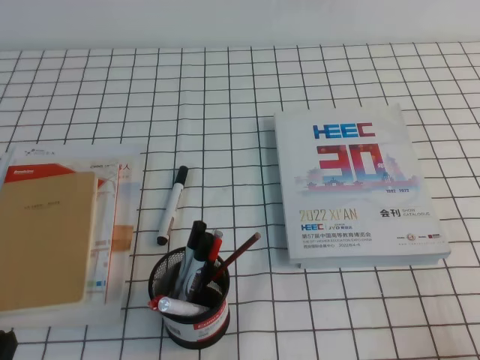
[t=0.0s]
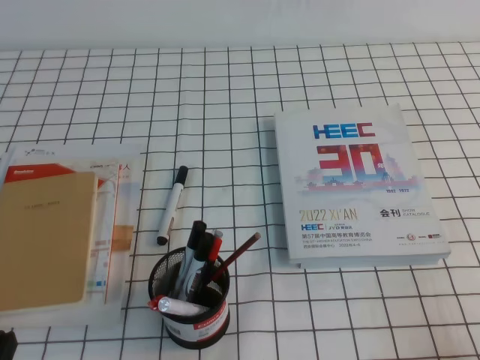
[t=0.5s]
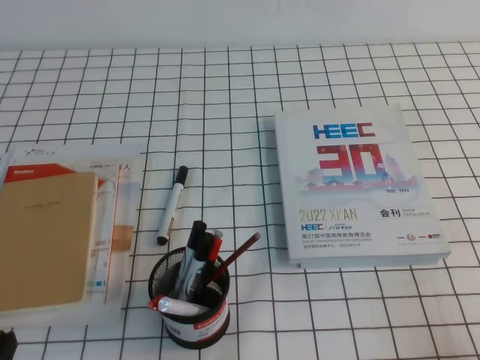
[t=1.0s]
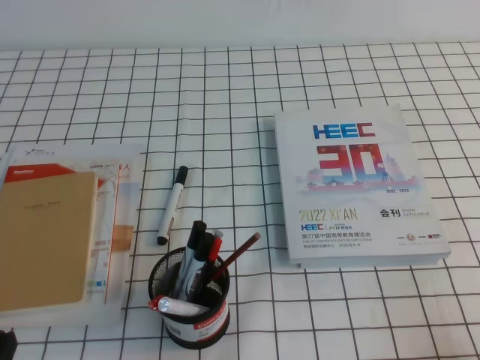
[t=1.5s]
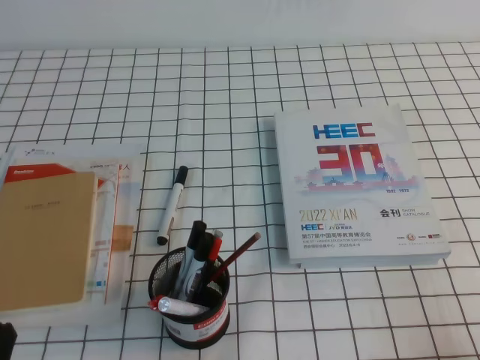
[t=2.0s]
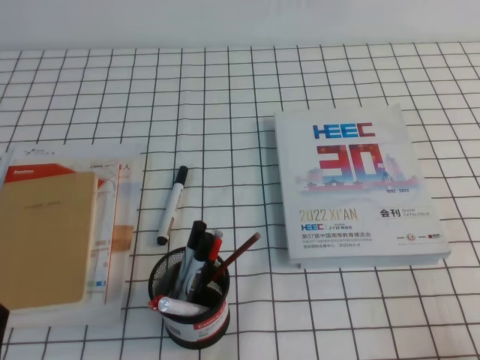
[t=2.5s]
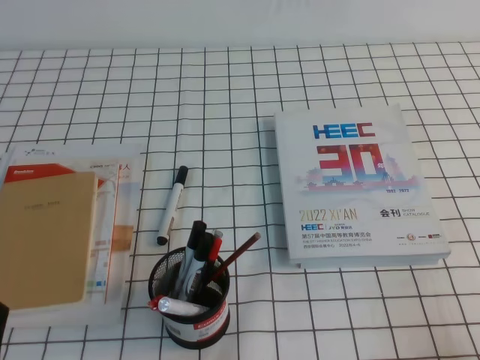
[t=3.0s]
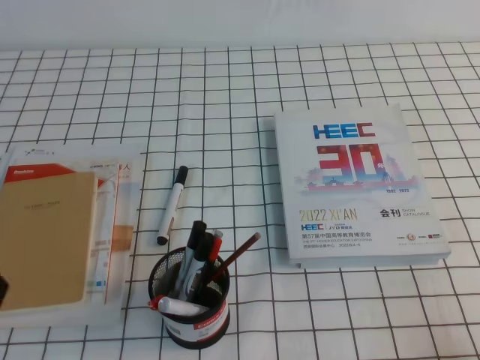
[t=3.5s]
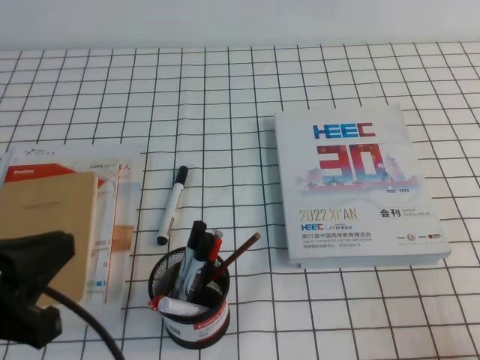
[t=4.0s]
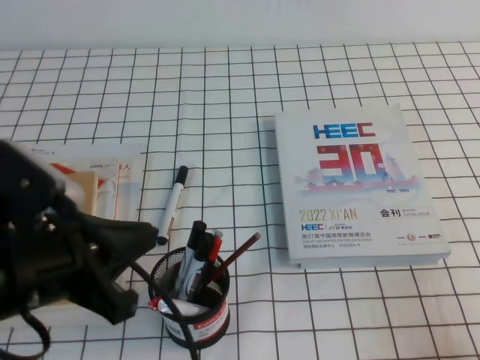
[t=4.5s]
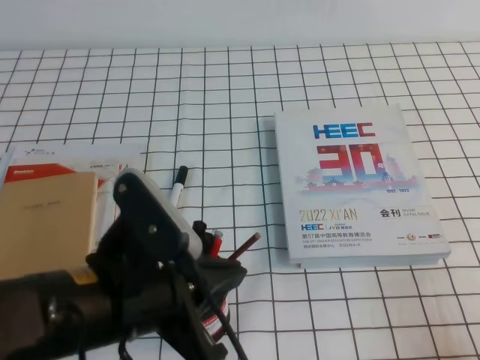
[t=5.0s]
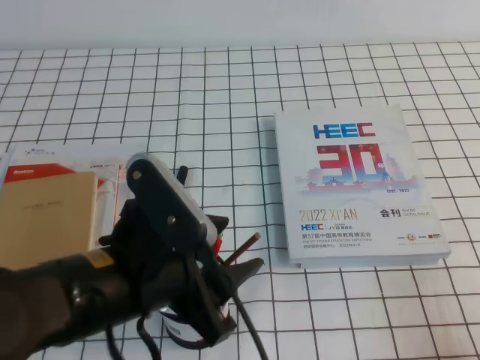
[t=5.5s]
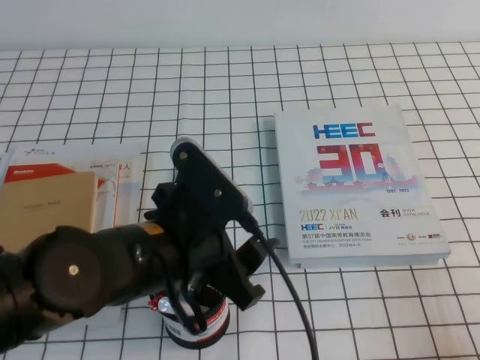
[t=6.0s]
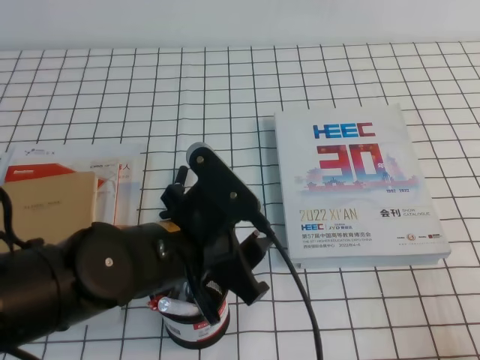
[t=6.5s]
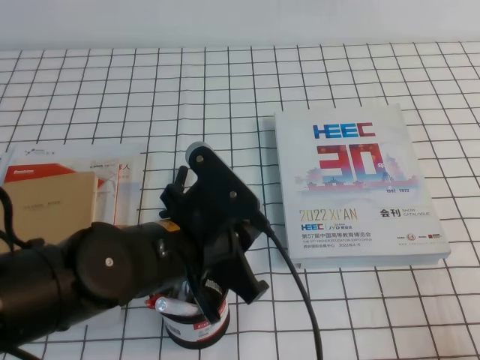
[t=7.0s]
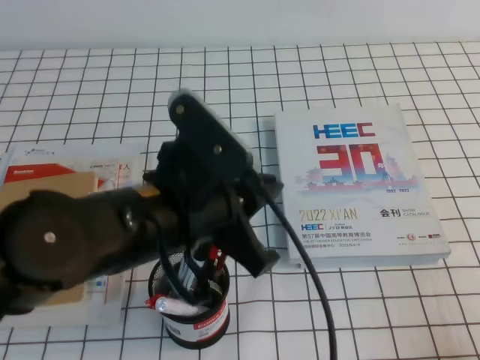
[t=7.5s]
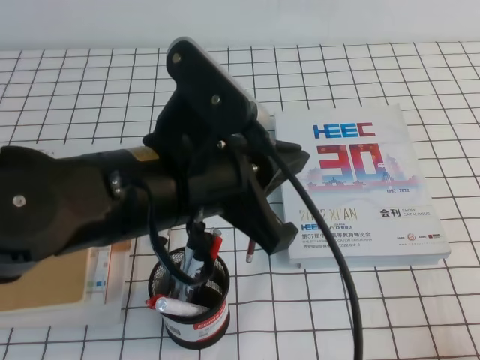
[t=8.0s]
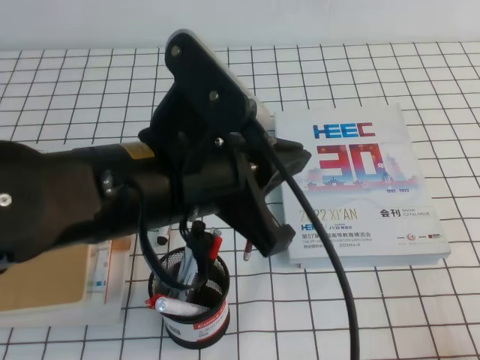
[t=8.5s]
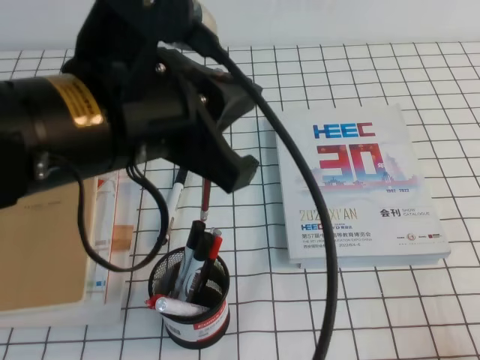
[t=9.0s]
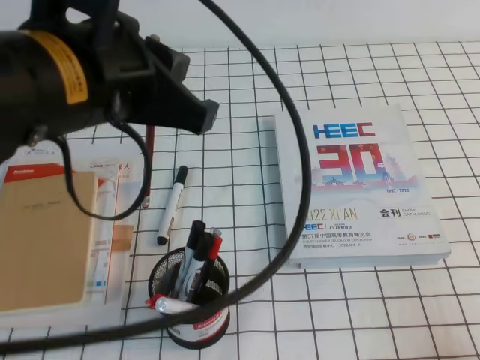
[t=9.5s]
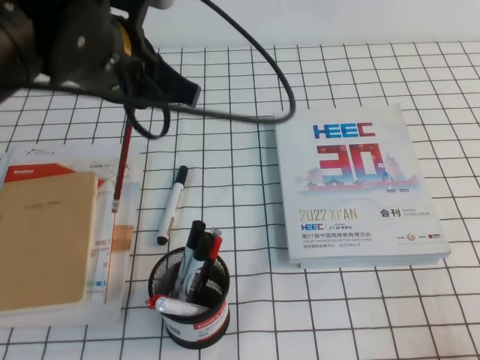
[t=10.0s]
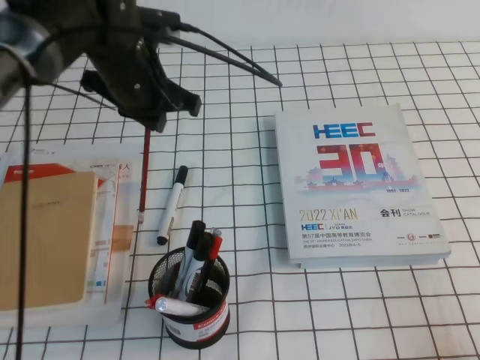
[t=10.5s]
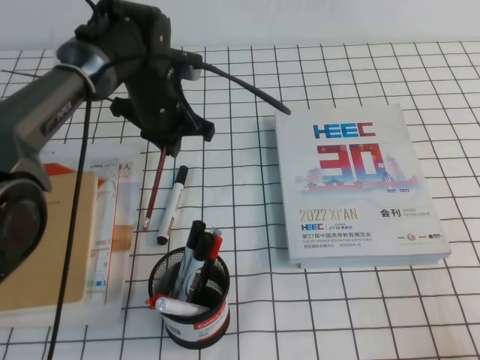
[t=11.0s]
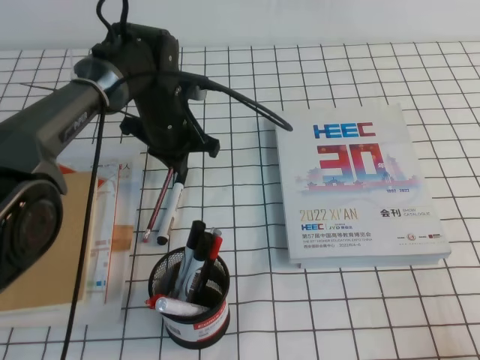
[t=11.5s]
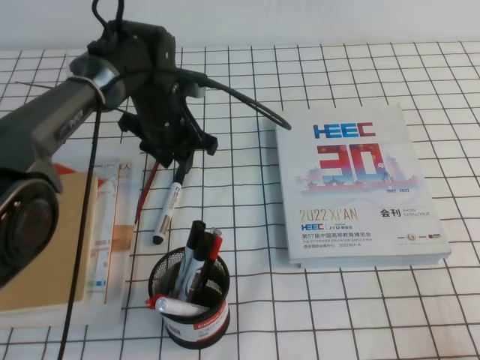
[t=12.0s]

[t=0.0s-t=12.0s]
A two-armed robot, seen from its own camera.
t=2.0s to t=4.0s: The left gripper is displaced upward by some 15 cm.
t=4.0s to t=6.0s: The left gripper shifts about 15 cm to the right and forward, and opens up.
t=6.0s to t=8.0s: The left gripper travels upward by some 10 cm, and closes up.
t=8.0s to t=10.0s: The left gripper moves forward, approximately 10 cm.
t=10.0s to t=12.0s: The left gripper travels downward and forward by some 20 cm, and opens its fingers.

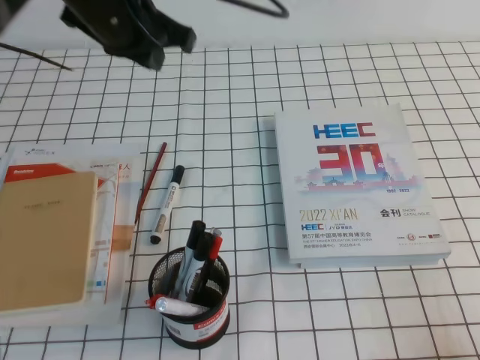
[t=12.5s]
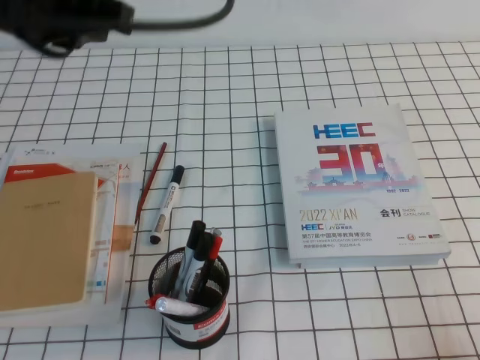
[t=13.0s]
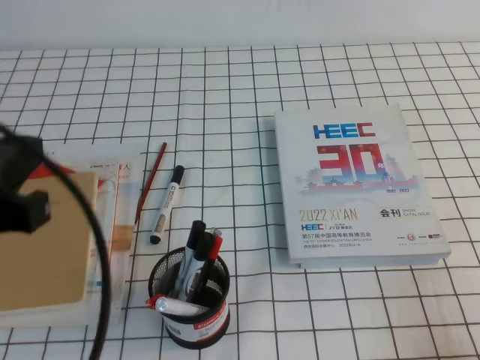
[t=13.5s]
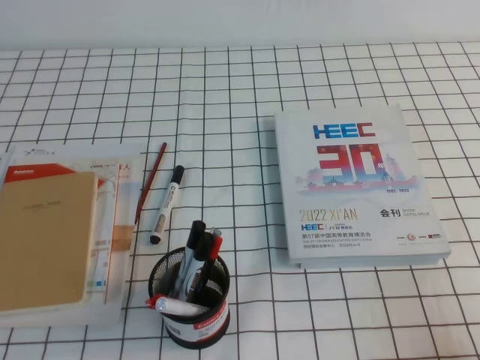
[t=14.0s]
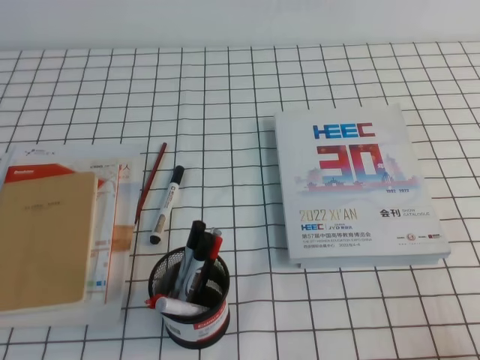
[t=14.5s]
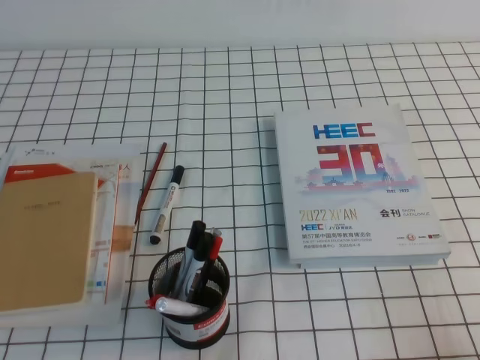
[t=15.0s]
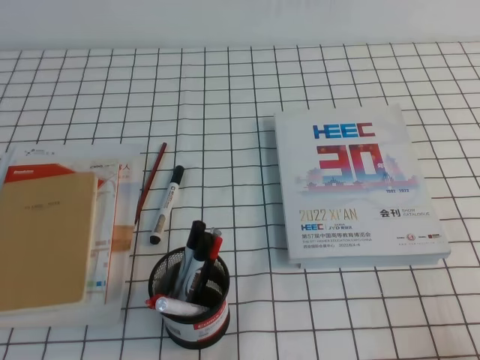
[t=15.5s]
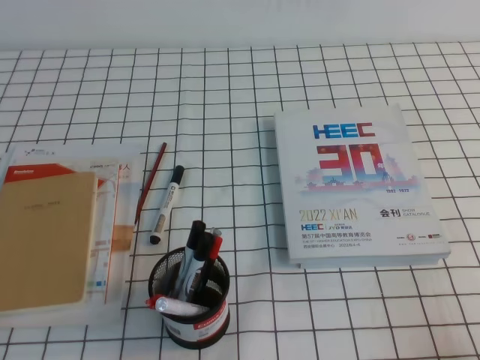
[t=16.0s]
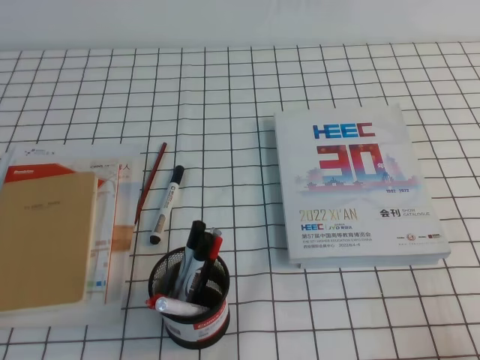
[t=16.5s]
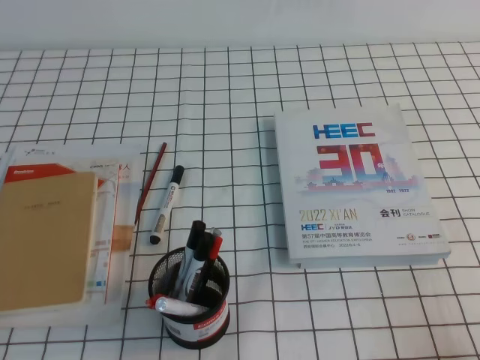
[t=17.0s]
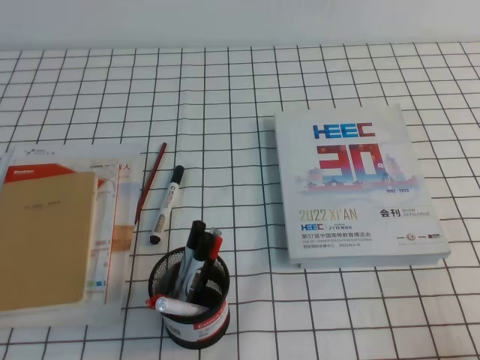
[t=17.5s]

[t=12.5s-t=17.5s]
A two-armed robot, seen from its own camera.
Step, t=12.5s to t=17.5s: Pick up the pen from the pen holder.
t=12.5s to t=15.0s: The left gripper goes about 40 cm backward, to the left and downward.
